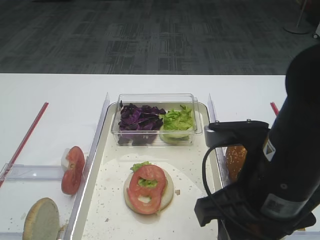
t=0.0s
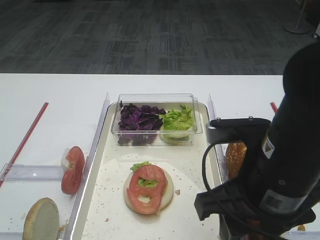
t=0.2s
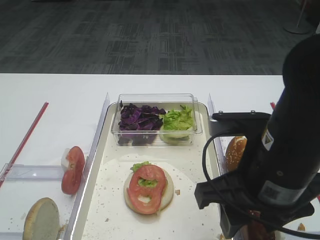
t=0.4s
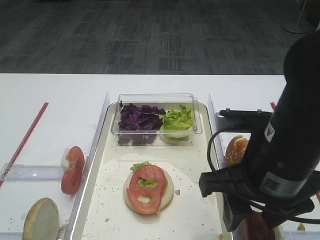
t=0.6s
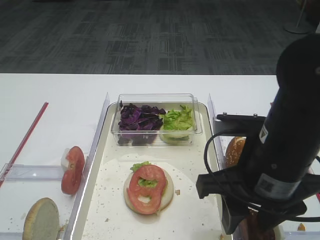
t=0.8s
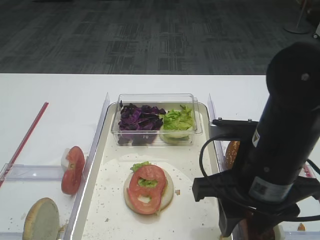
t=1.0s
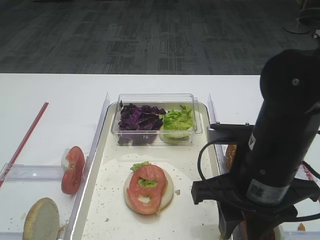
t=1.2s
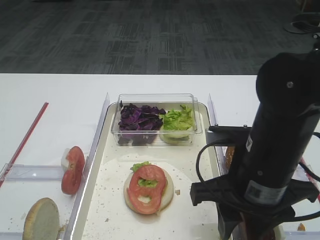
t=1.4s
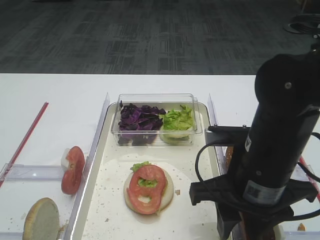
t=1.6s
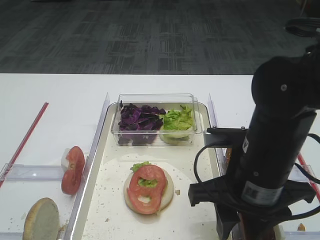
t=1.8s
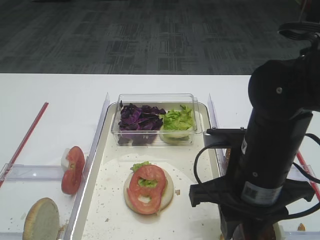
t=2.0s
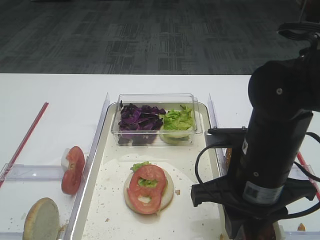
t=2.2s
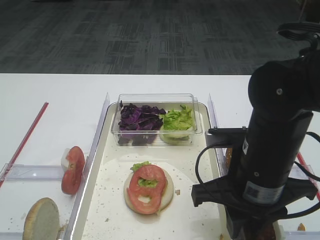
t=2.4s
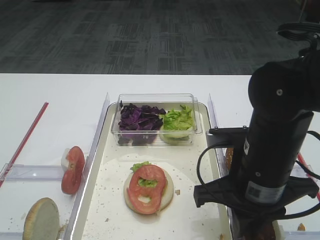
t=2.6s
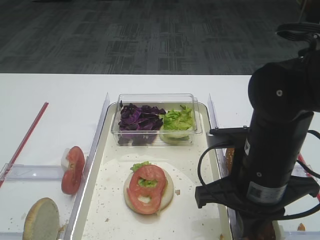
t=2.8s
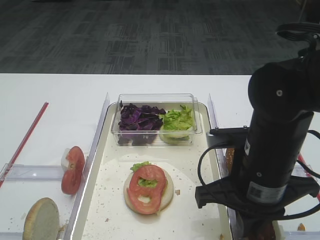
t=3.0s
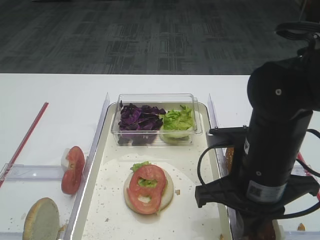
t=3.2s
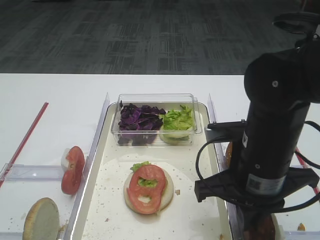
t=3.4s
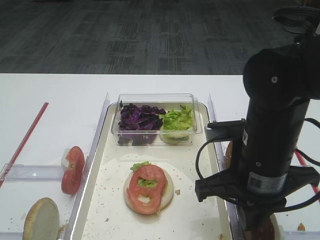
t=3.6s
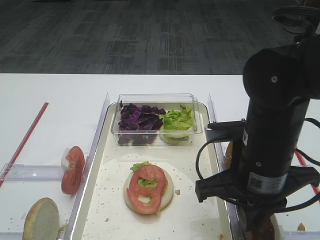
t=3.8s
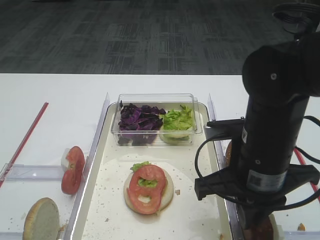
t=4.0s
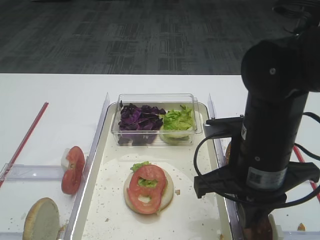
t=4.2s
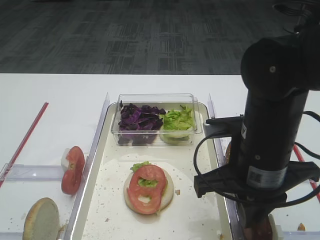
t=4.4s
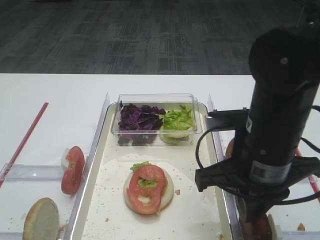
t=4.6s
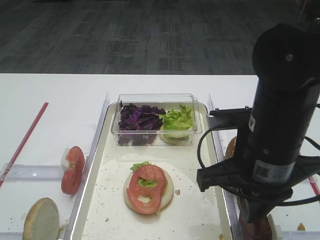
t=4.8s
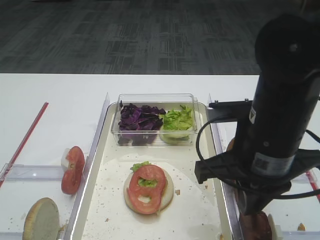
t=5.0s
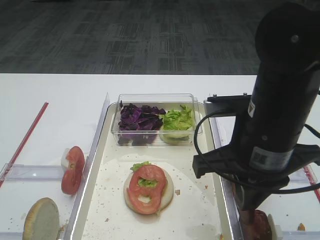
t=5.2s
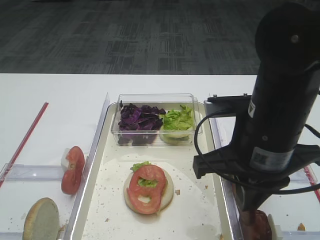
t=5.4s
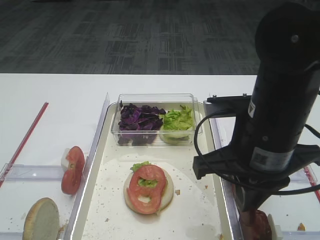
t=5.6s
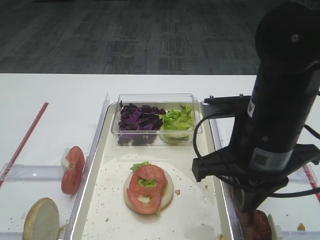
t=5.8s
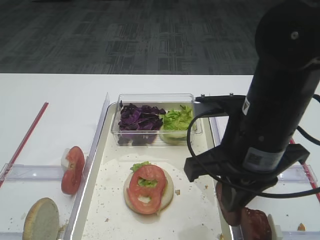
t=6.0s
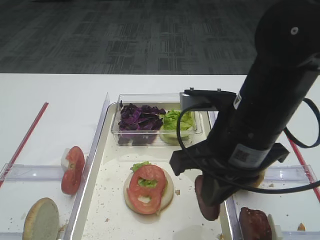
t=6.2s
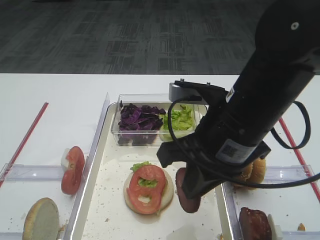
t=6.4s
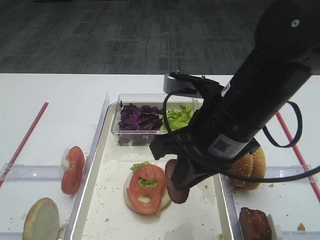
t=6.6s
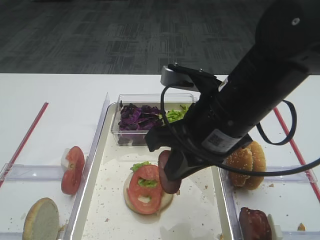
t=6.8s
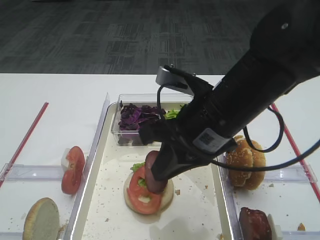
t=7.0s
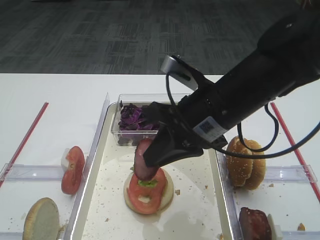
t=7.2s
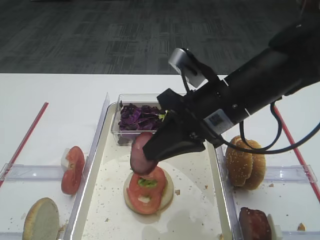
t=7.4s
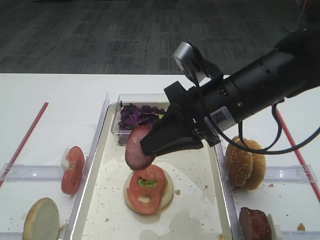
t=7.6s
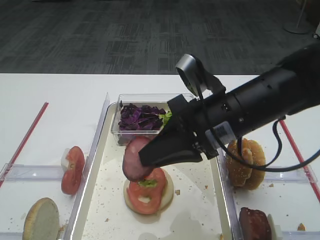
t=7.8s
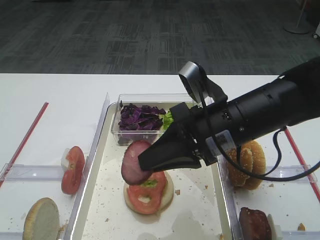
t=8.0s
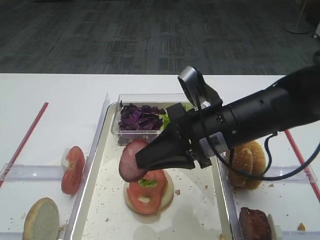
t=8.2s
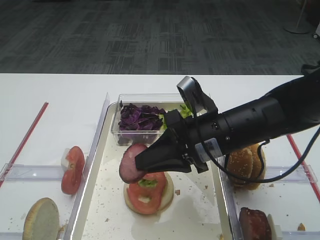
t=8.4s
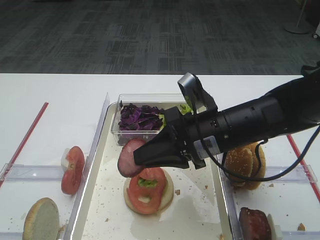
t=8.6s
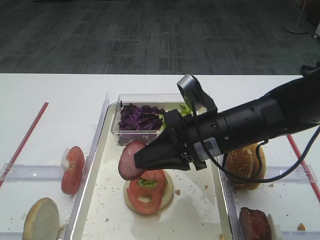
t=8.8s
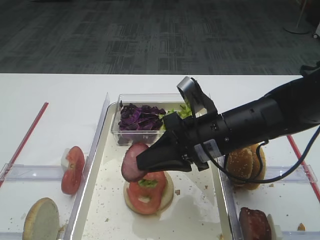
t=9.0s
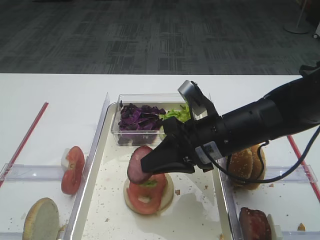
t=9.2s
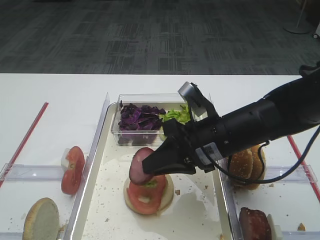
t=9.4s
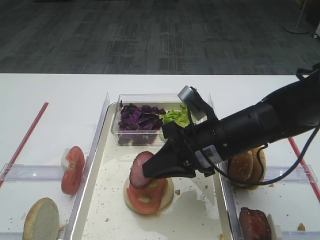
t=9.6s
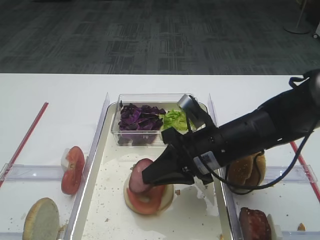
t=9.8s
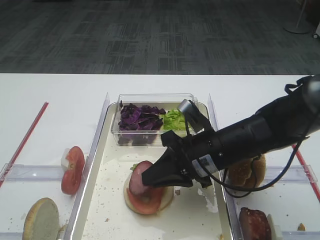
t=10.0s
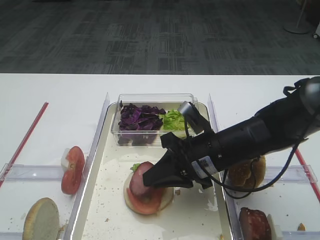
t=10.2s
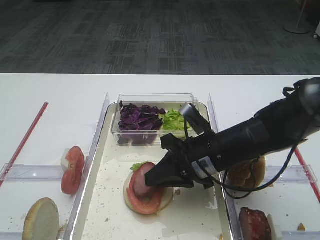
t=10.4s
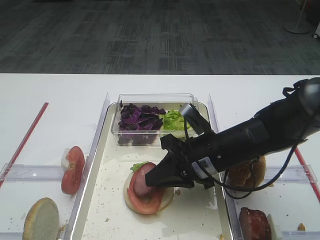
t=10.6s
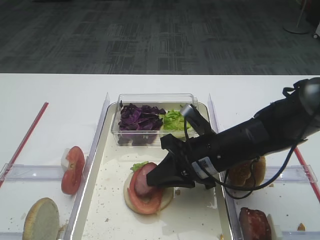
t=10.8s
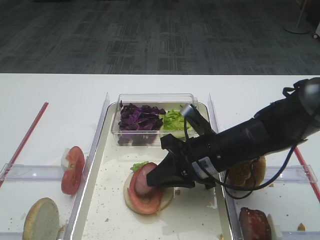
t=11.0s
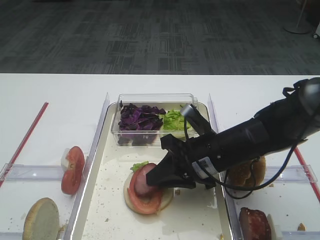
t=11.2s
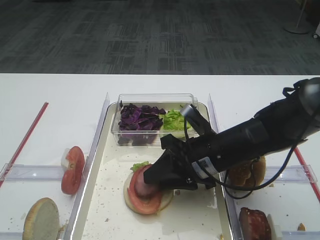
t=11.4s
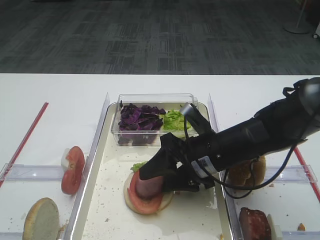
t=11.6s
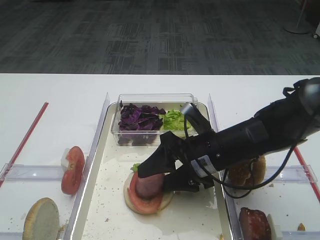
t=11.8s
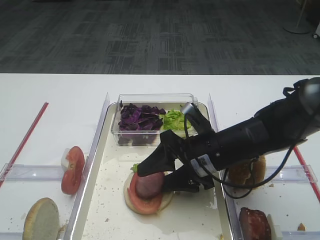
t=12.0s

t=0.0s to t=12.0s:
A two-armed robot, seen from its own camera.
Step, t=0.0s to t=5.0s: Pick up the cutlet with the right gripper.
t=0.0s to t=1.6s: The right gripper shifts by about 5 cm.
t=1.6s to t=3.0s: The right gripper closes.
t=3.0s to t=6.0s: There are only small adjustments of the grippers.
t=6.0s to t=7.6s: The right gripper travels forward by roughly 5 cm.
t=7.6s to t=9.0s: The right gripper moves downward, approximately 5 cm.
t=9.0s to t=10.4s: The right gripper heads downward, covering roughly 5 cm.
t=10.4s to t=12.0s: The right gripper opens up.

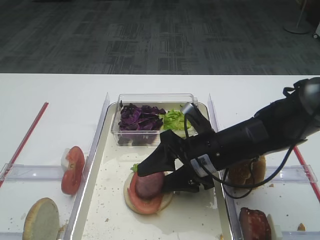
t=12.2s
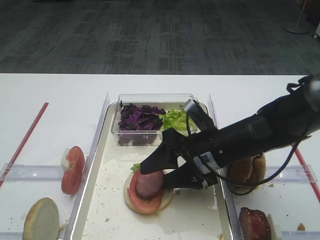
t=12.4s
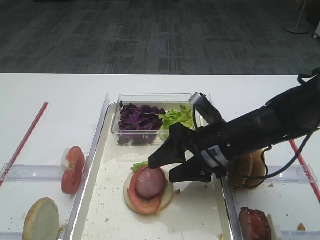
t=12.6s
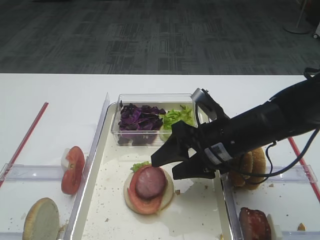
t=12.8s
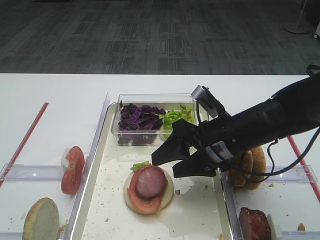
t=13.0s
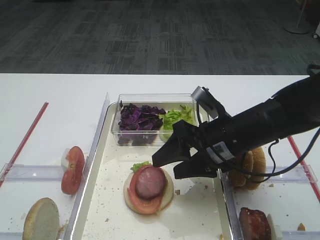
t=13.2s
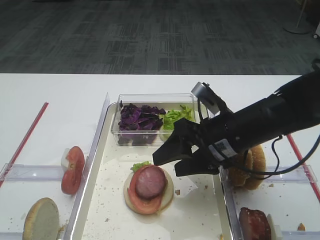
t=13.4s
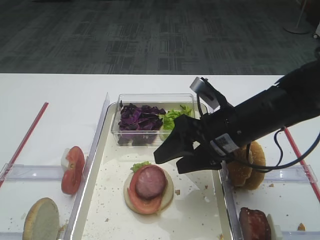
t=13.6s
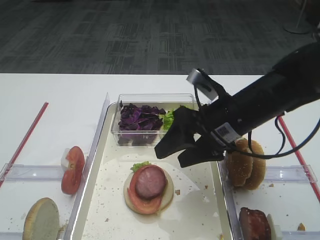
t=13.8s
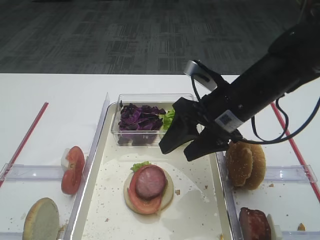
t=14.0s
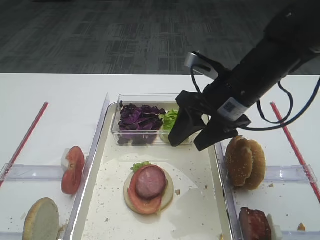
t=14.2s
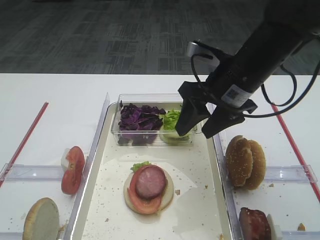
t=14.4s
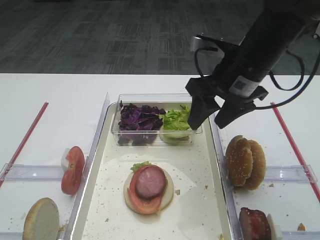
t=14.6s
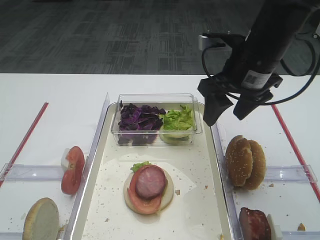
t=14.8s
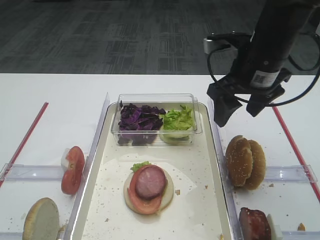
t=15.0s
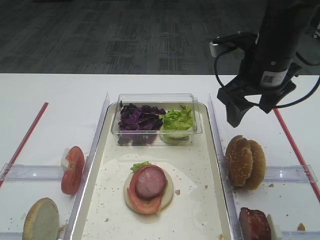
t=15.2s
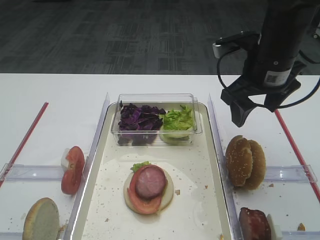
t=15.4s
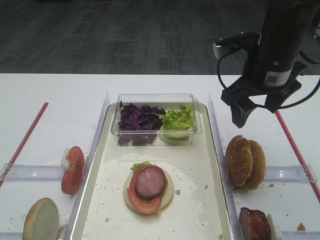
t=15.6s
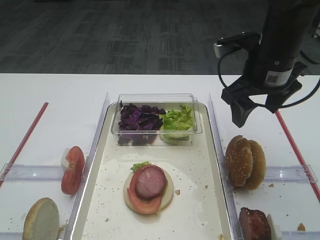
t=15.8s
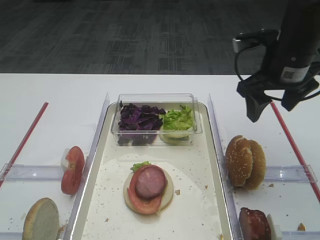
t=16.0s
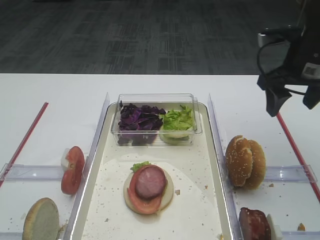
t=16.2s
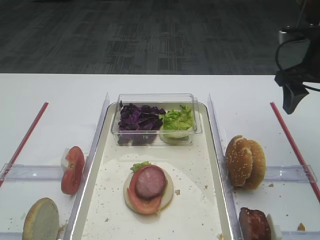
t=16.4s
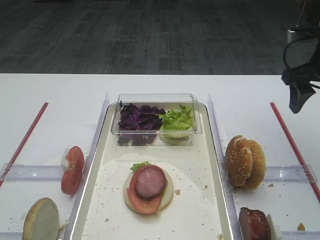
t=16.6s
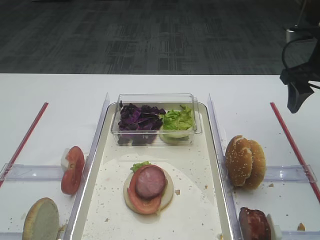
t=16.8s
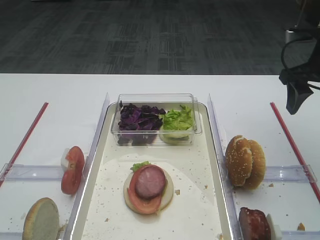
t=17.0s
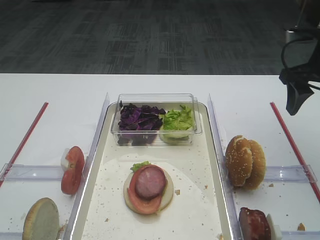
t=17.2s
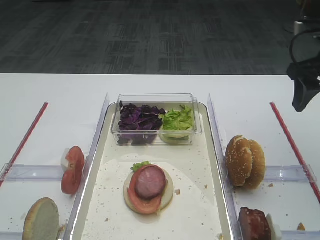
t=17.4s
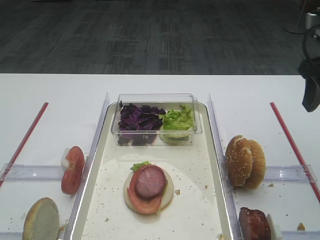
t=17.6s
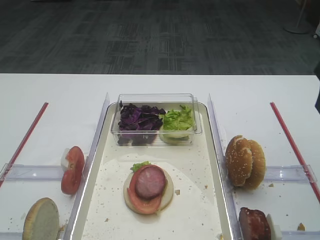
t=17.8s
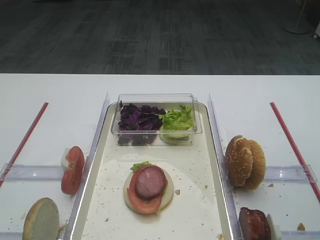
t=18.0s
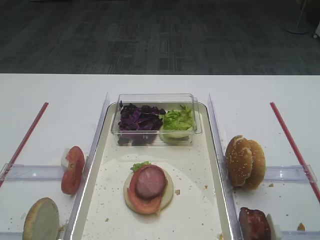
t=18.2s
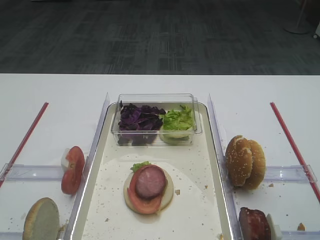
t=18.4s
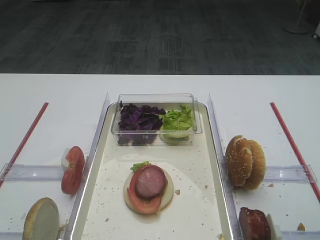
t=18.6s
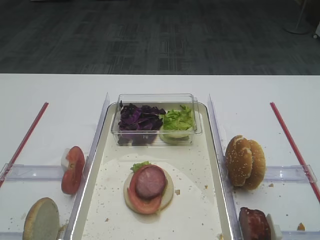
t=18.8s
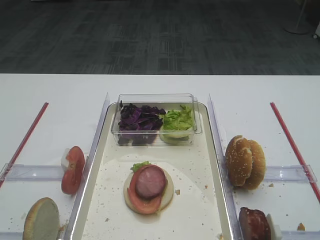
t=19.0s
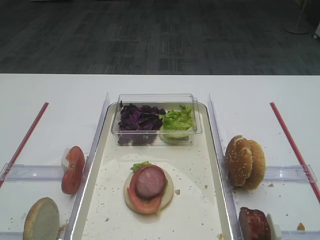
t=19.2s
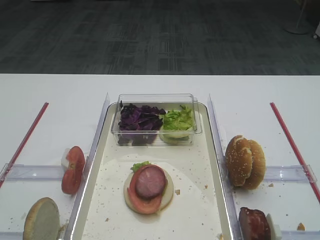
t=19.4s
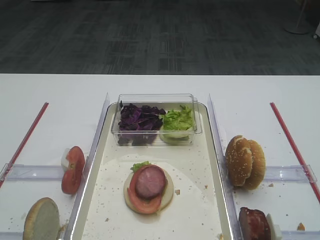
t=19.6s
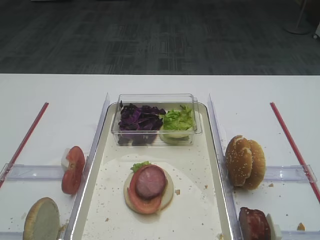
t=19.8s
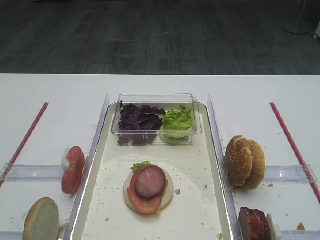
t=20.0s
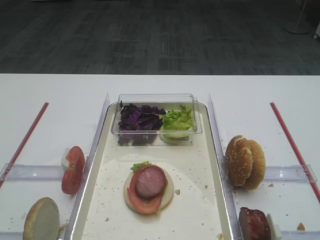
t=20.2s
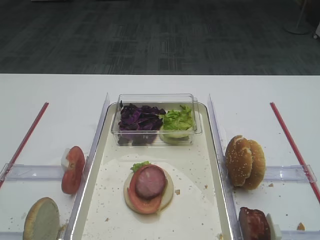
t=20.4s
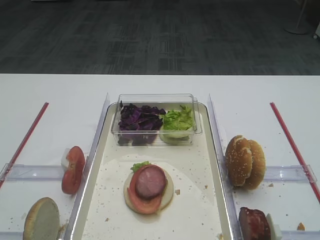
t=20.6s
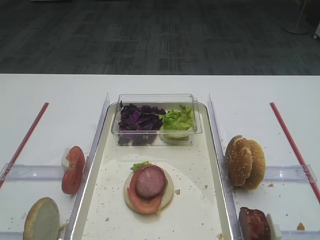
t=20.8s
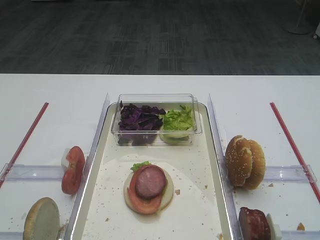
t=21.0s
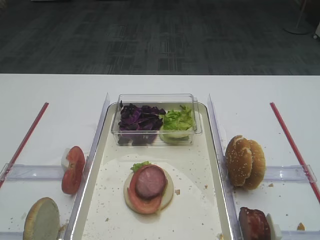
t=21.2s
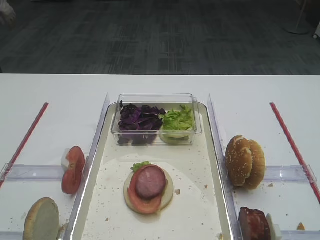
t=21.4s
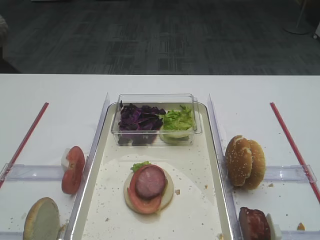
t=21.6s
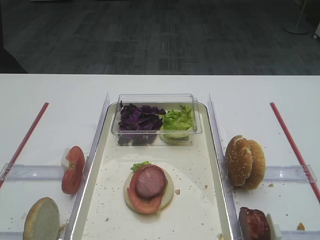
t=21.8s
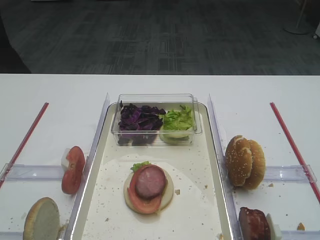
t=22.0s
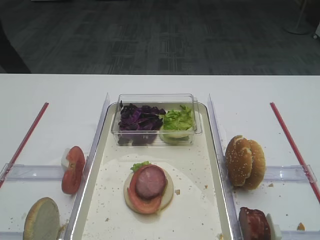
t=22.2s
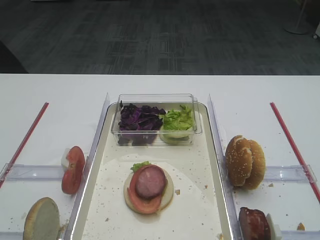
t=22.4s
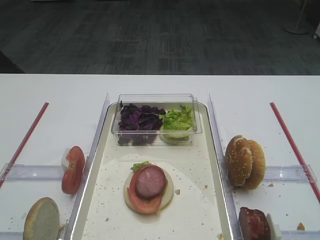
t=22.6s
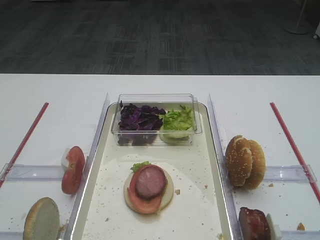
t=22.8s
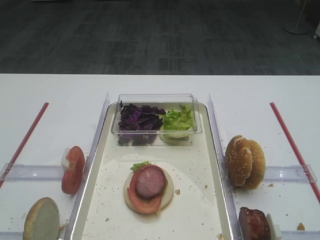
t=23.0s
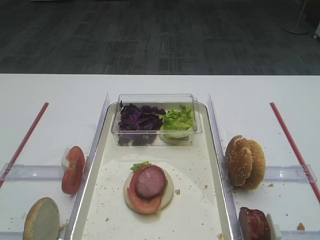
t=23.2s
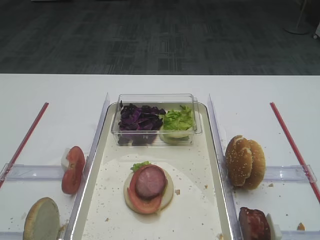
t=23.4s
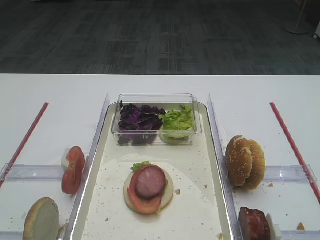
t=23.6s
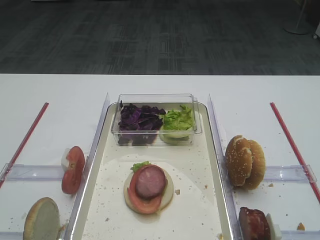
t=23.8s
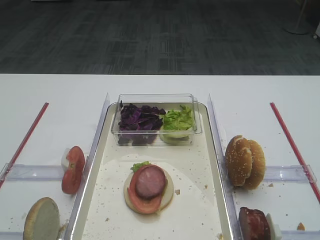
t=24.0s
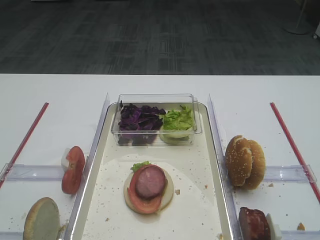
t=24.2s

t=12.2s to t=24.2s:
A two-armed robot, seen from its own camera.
t=12.2s to t=13.8s: The right gripper heads upward, covering roughly 5 cm.
t=13.8s to t=15.2s: The right gripper moves upward and forward, about 10 cm.
t=15.2s to t=16.6s: The right gripper moves to the right, approximately 10 cm.
t=16.6s to t=18.2s: The right gripper shifts some 20 cm backward.
t=21.2s to t=24.2s: Both grippers stay put.
